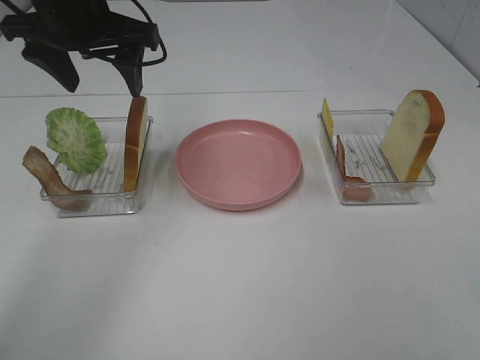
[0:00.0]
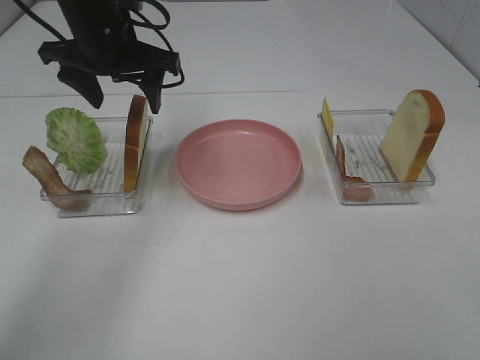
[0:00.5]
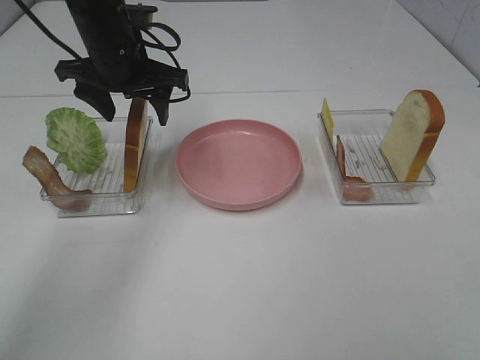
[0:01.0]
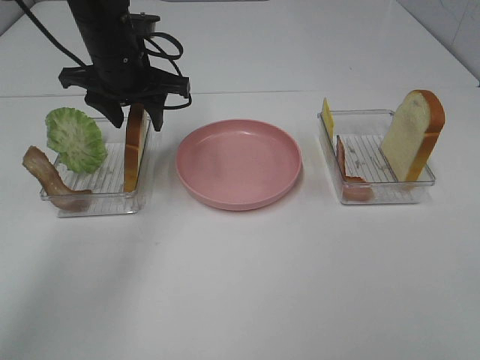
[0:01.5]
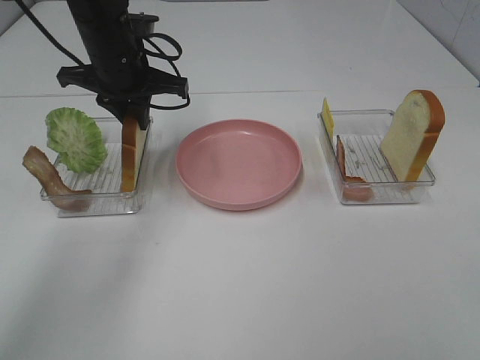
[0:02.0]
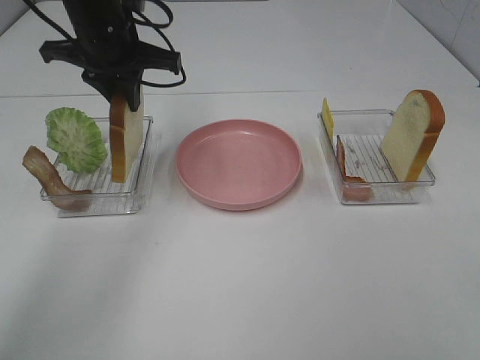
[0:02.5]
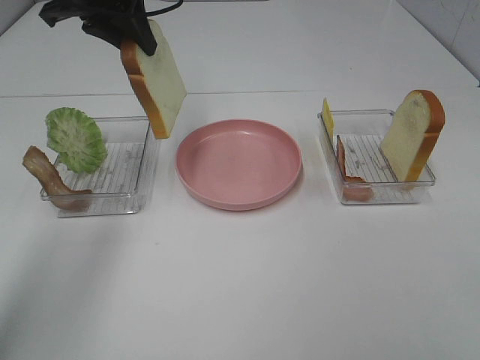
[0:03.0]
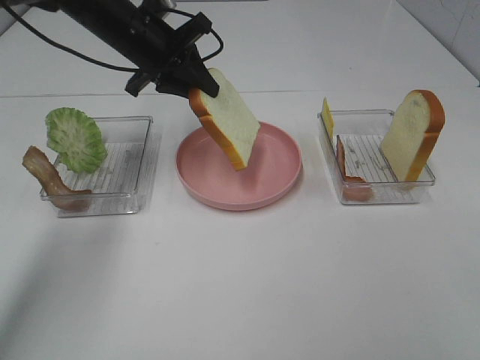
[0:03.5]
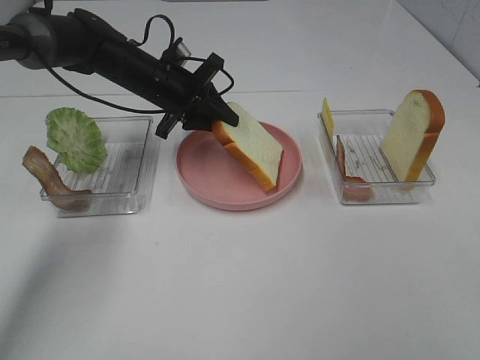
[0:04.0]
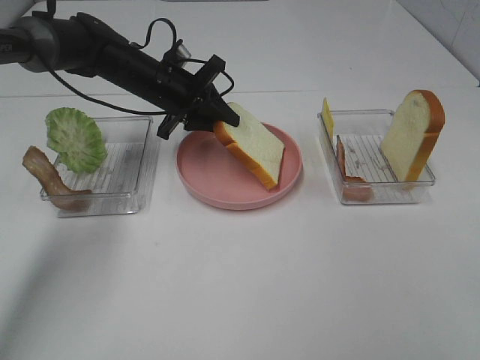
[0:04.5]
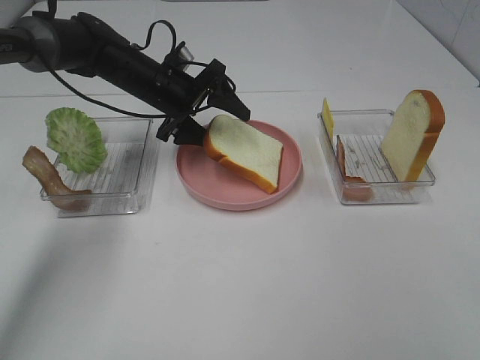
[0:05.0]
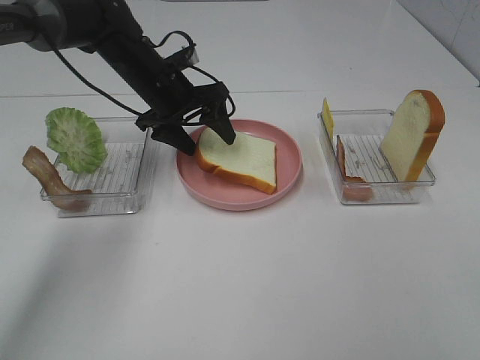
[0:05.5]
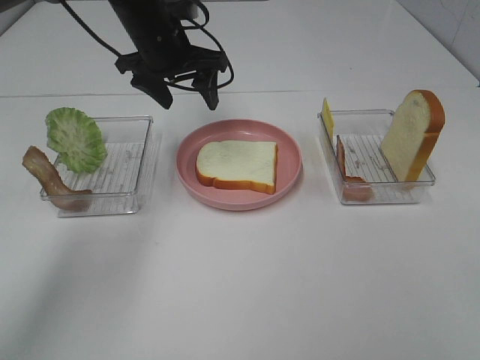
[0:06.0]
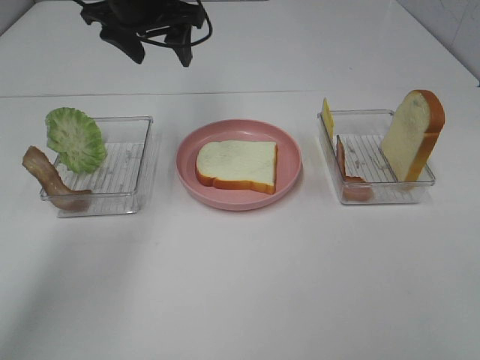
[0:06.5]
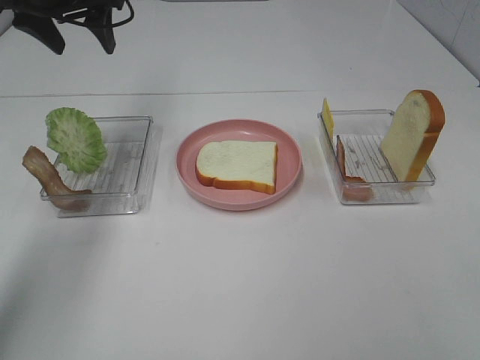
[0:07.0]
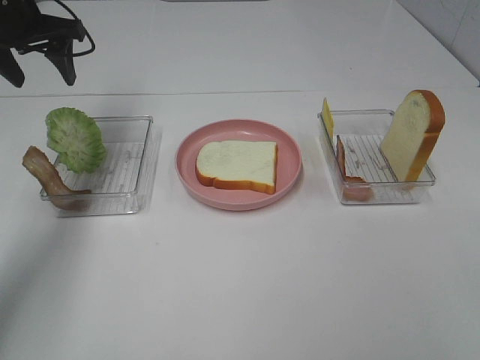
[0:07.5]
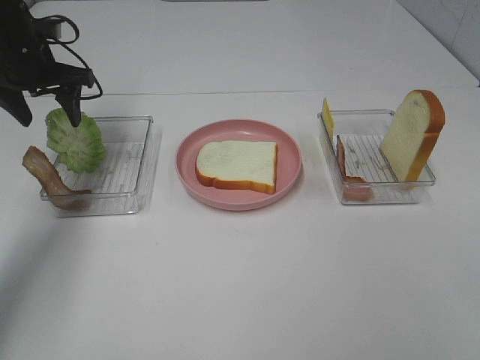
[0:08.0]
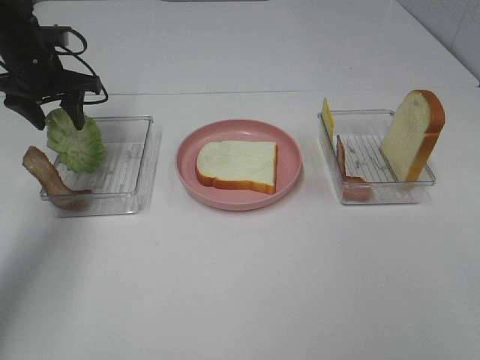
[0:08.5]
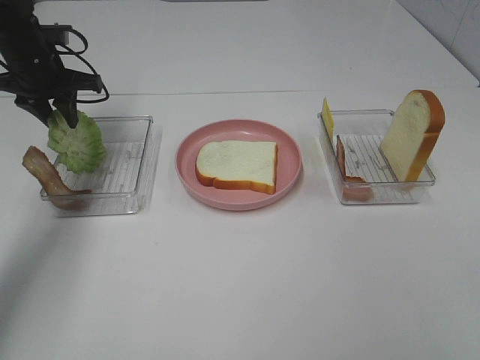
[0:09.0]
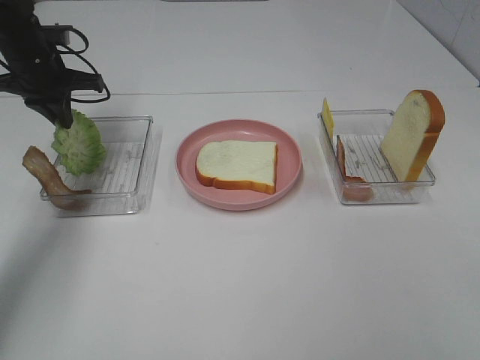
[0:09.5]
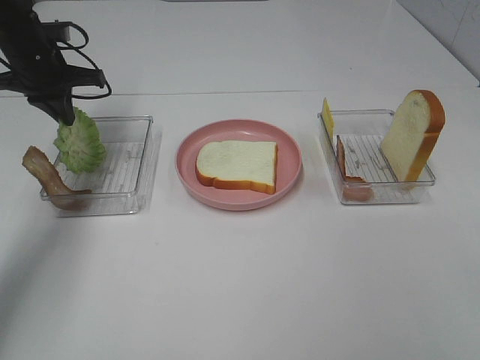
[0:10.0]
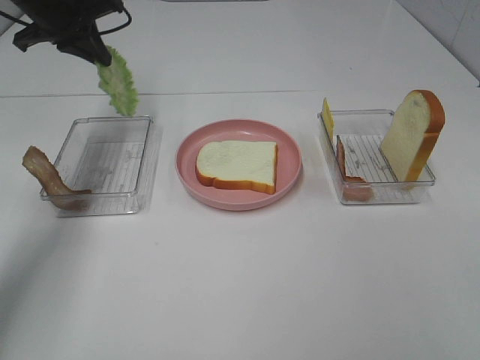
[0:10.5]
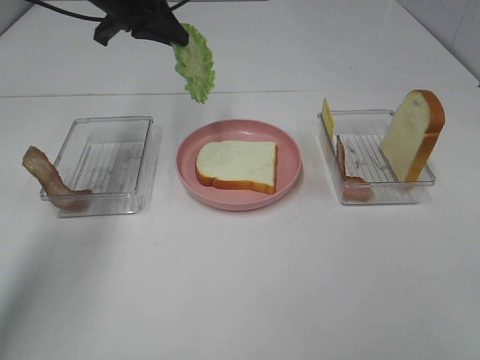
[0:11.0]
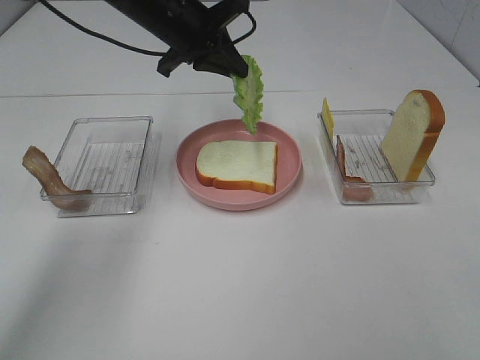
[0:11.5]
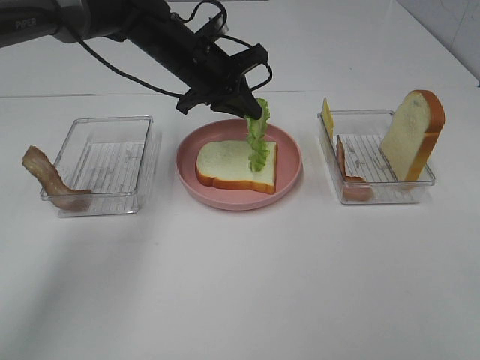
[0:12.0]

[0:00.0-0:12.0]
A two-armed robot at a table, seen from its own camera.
Task of the whole recording: Make sandwiches.
Step, 0:00.0 to 0:02.0: Left hand:grab the bread slice.
Step, 0:02.5 to 0:05.5: Left hand:place the bread slice on the plate.
Step, 0:06.0 to 0:09.5: Left hand:grab the lettuce slice.
0:00.0 to 0:02.0: The left gripper travels downward by roughly 10 cm, and closes.
0:02.0 to 0:04.0: The left gripper is displaced downward by roughly 5 cm.
0:04.0 to 0:06.0: The left gripper travels upward by about 10 cm, and opens its fingers.
0:06.0 to 0:08.0: The left gripper is displaced to the left by some 20 cm.
0:08.0 to 0:10.0: The left gripper closes its fingers.
0:10.0 to 0:12.0: The left gripper travels to the right by about 20 cm.

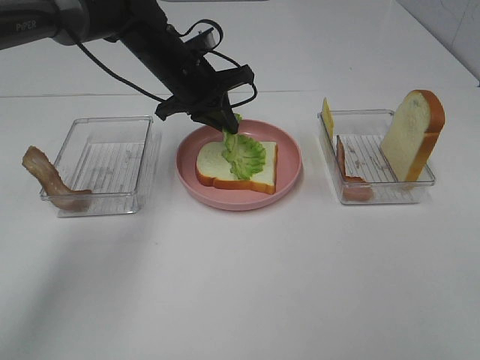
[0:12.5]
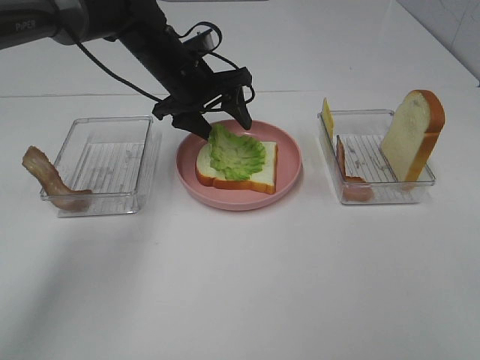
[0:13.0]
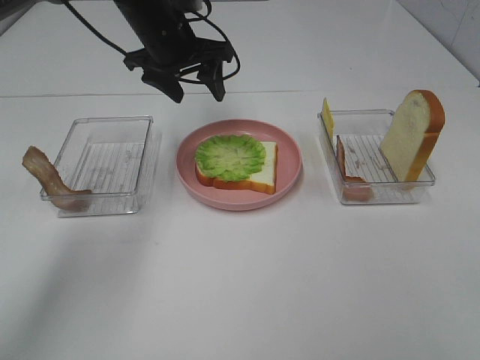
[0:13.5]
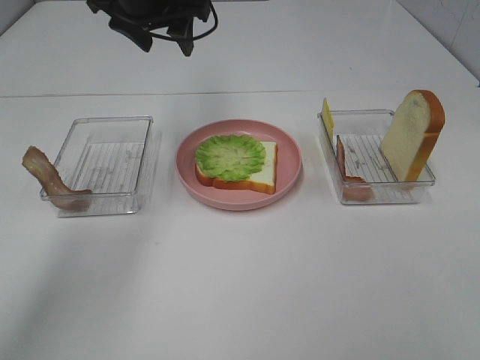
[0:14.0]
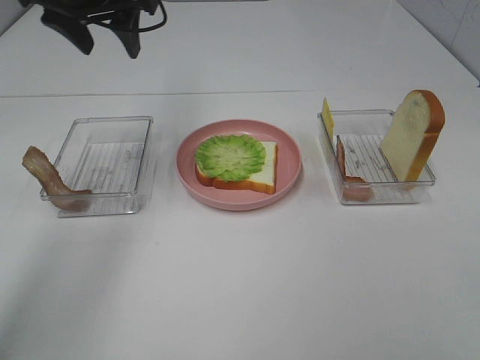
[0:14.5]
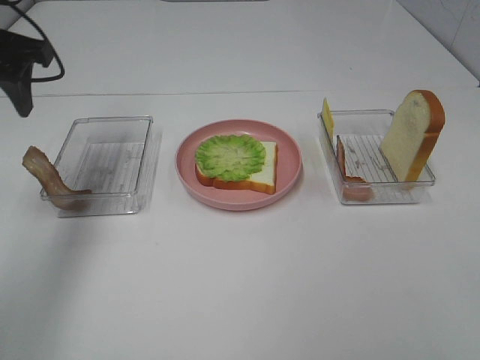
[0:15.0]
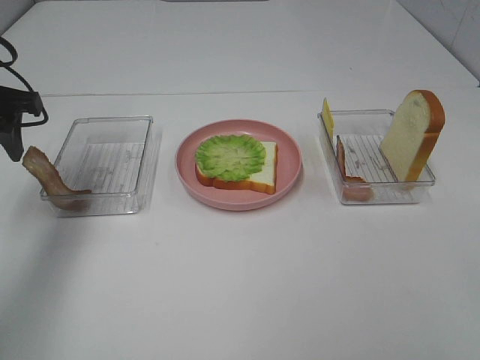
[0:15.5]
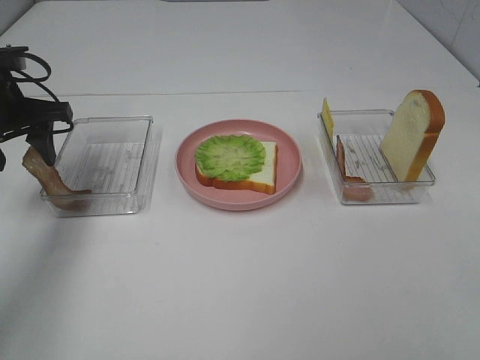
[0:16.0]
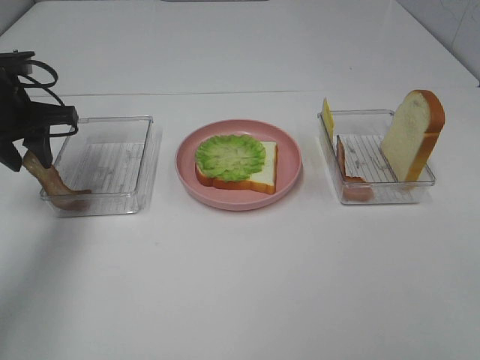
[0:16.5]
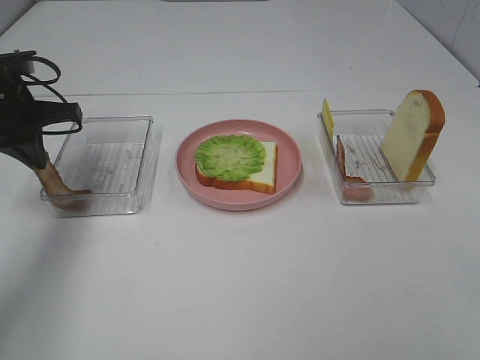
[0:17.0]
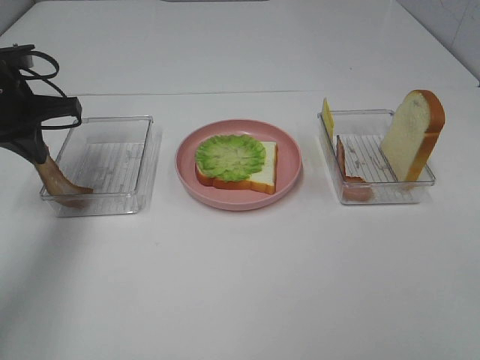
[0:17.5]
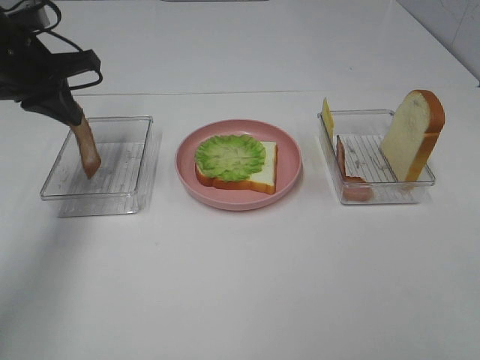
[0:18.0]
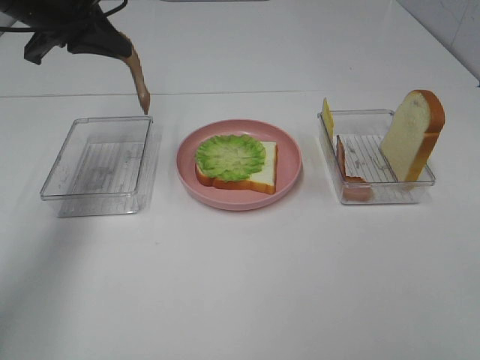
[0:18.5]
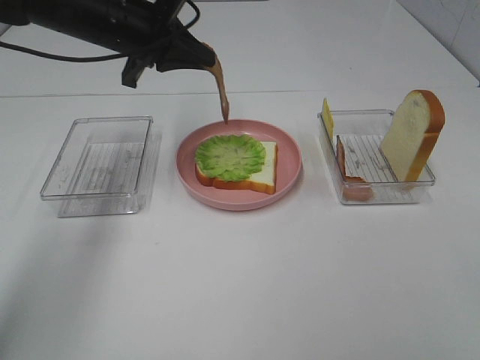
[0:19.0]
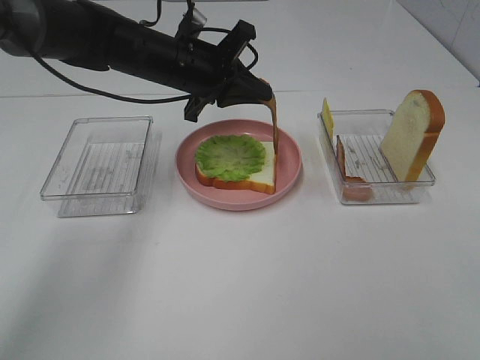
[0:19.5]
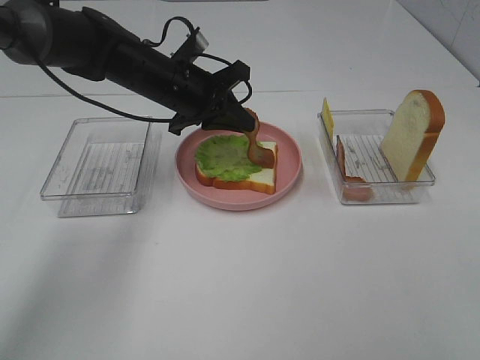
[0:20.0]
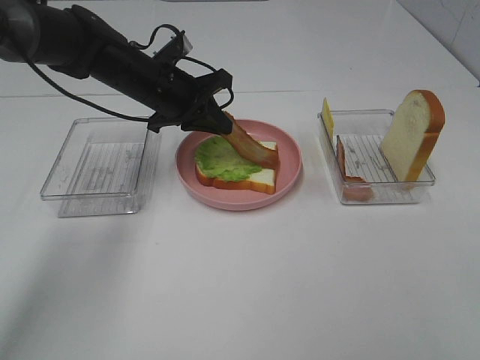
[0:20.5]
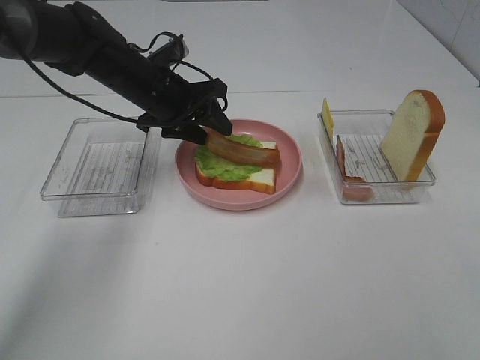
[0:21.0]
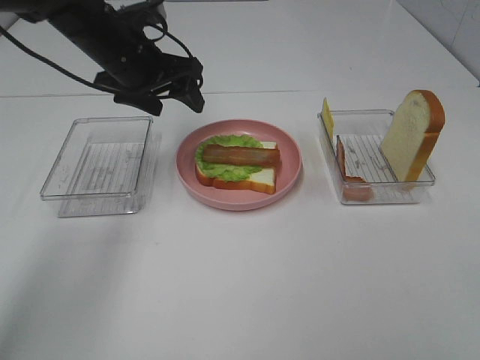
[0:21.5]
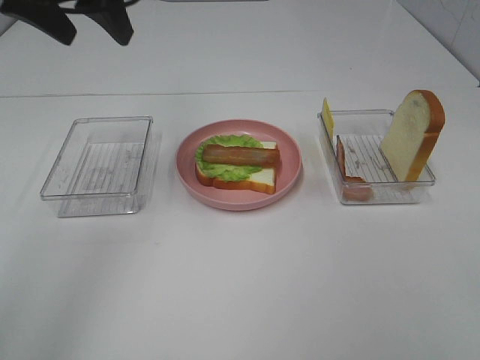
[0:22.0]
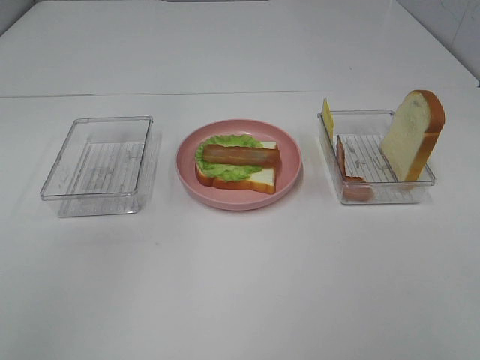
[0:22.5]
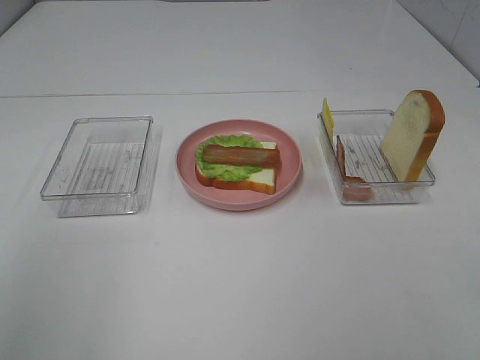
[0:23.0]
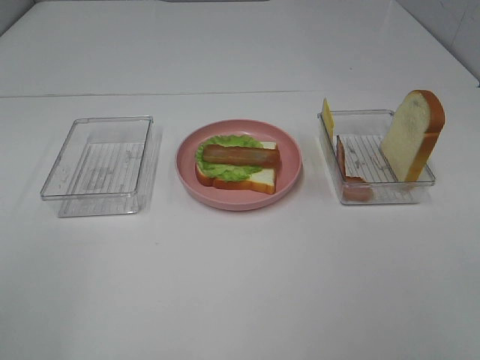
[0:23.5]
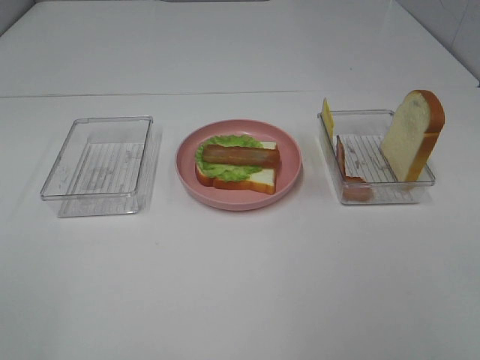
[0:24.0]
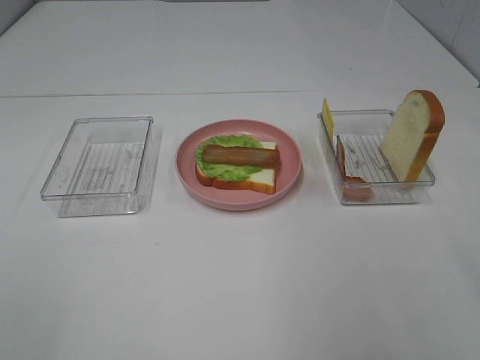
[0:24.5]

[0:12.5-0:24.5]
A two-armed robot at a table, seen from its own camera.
Task of the whole recording: Make sandwiches.
Step, 0:13.5 to 0:17.0: Left hand:grab the bacon.
Step, 0:17.5 to 0:21.0: Left hand:place bacon on lettuce slice.
0:12.5 to 0:14.5: The left gripper heads upward and to the left, covering about 15 cm, and opens its fingers.
0:14.5 to 0:16.5: The left gripper heads downward, to the left and backward, covering roughly 15 cm.
0:16.5 to 0:18.5: The left gripper is displaced upward and to the right by roughly 10 cm, and closes its fingers.
0:18.5 to 0:20.5: The left gripper shifts about 15 cm downward and to the right.
0:20.5 to 0:22.5: The left gripper moves upward and backward, about 35 cm, and opens its fingers.

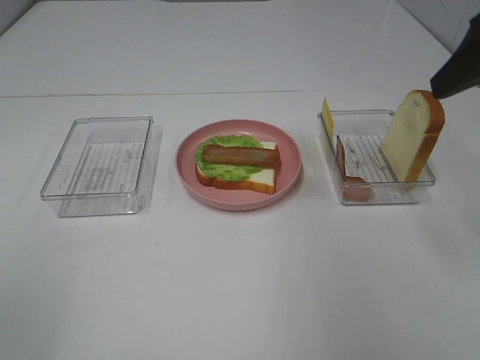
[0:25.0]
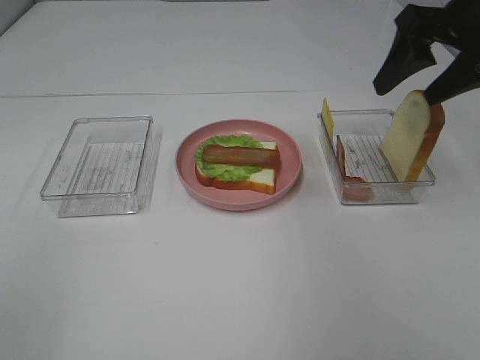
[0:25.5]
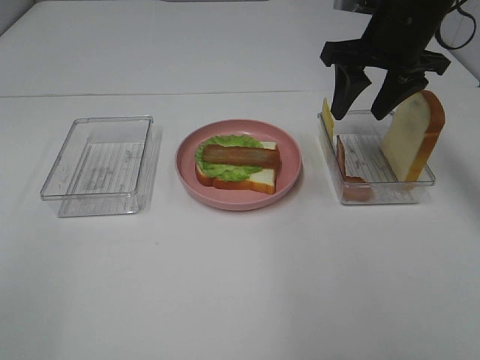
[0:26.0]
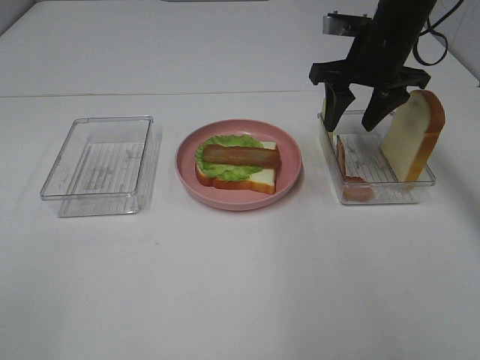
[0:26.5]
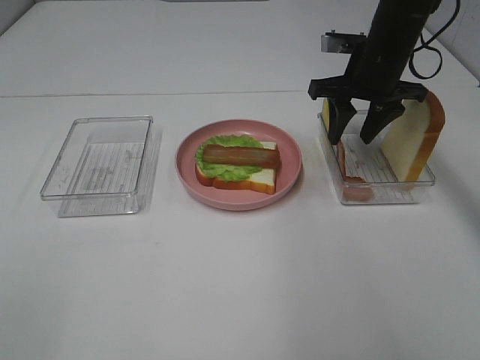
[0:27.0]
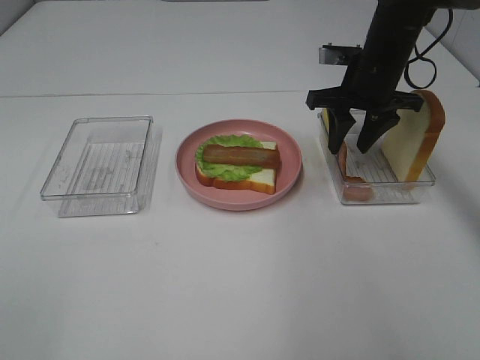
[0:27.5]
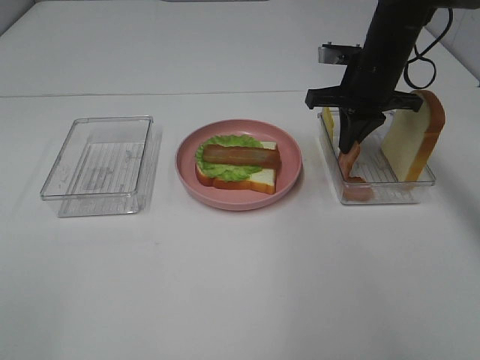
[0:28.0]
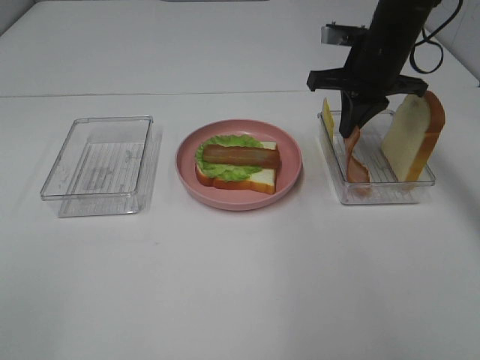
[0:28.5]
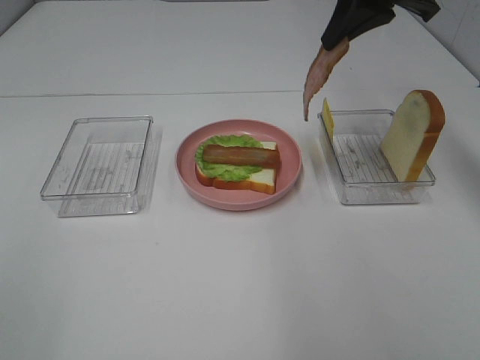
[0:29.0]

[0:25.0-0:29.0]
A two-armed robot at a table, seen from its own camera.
Task of the whole recording: Make sandwiches.
Step, 0:25.0 to 0:27.5: Right hand:grab the bacon.
0:25.0 to 0:27.0: The right gripper moves forward, downward and to the left, some 25 cm.
0:27.0 to 0:29.0: The right gripper moves upward, approximately 15 cm, and closes up.
